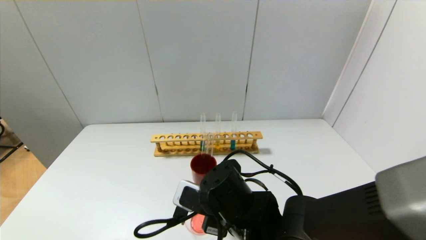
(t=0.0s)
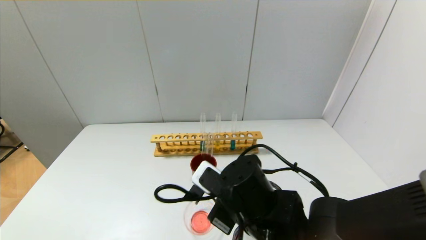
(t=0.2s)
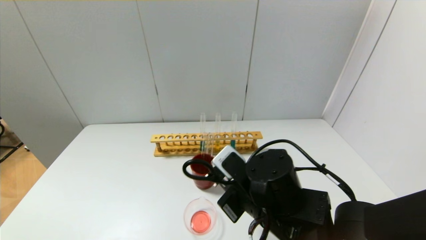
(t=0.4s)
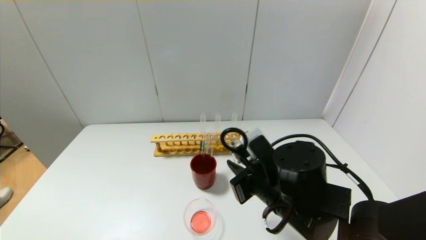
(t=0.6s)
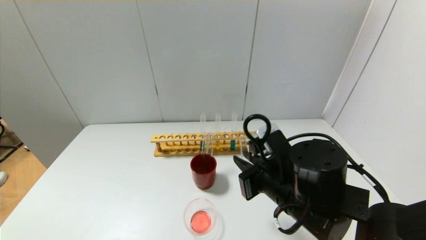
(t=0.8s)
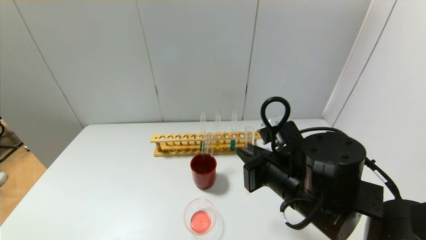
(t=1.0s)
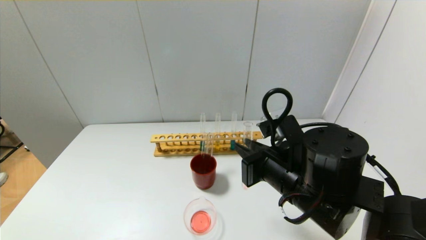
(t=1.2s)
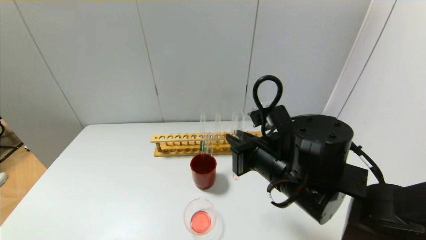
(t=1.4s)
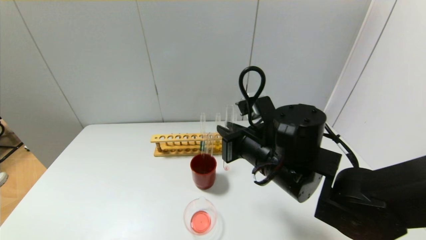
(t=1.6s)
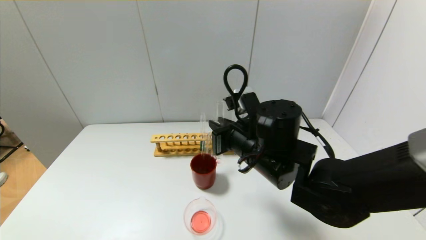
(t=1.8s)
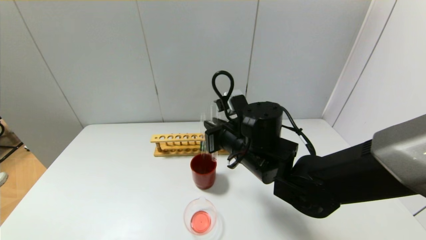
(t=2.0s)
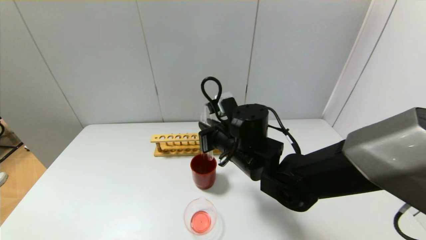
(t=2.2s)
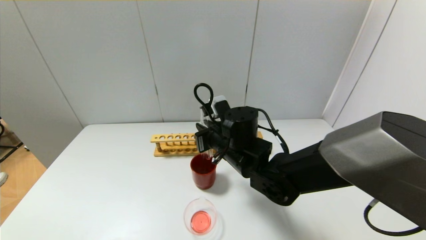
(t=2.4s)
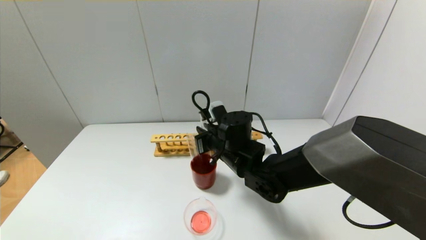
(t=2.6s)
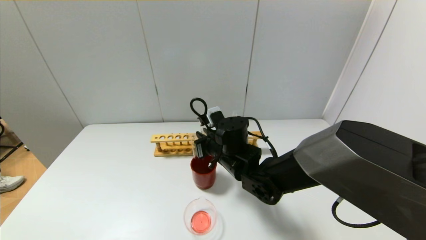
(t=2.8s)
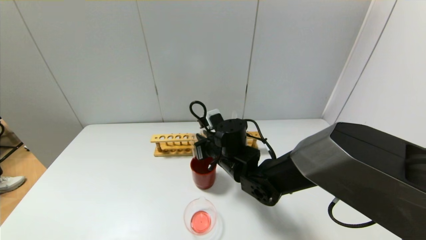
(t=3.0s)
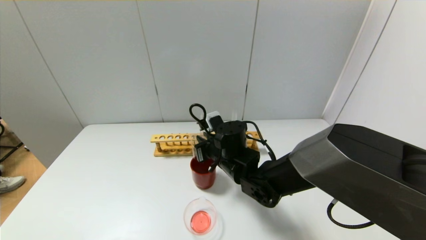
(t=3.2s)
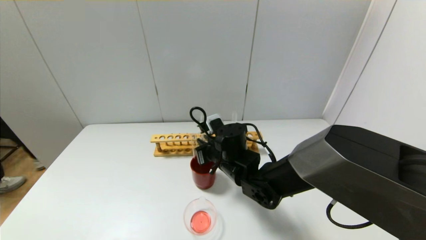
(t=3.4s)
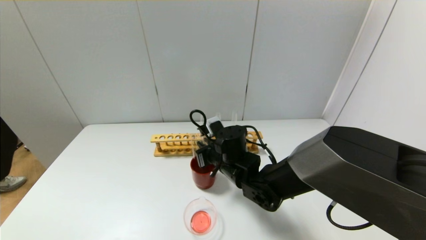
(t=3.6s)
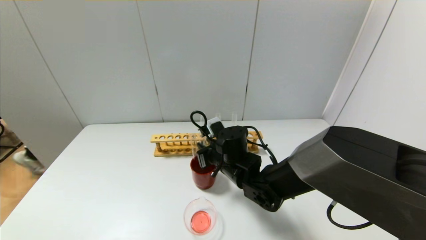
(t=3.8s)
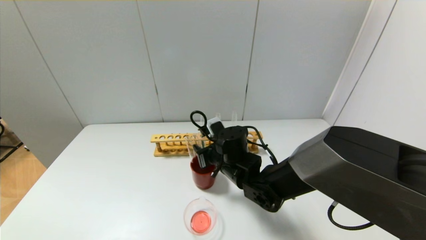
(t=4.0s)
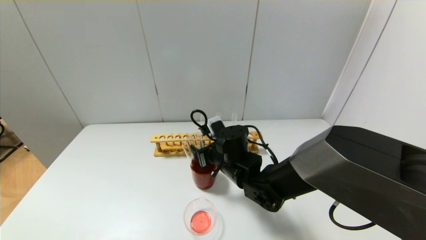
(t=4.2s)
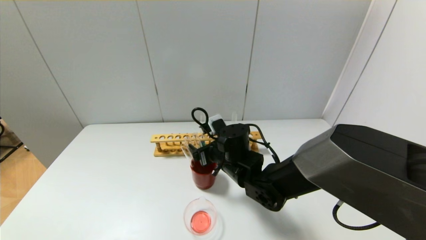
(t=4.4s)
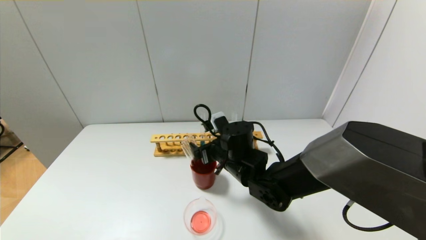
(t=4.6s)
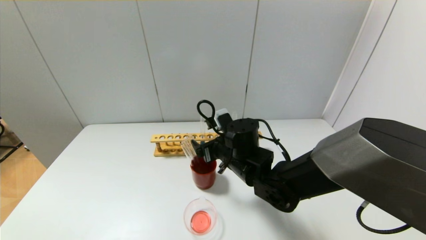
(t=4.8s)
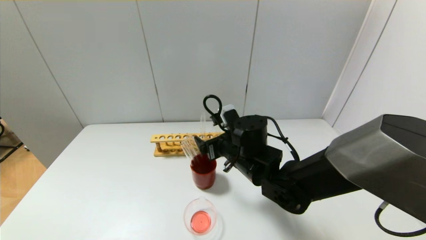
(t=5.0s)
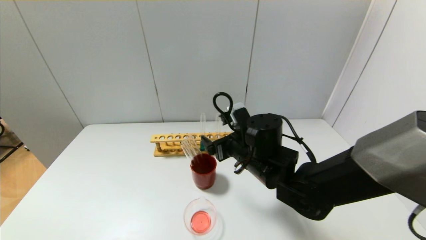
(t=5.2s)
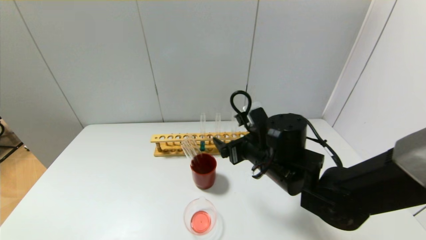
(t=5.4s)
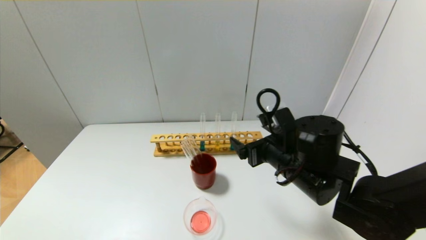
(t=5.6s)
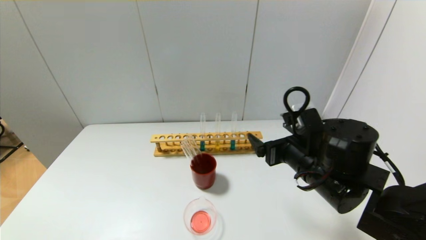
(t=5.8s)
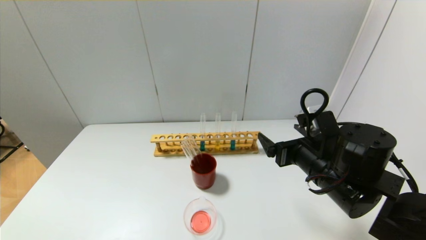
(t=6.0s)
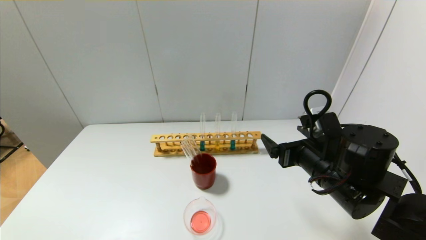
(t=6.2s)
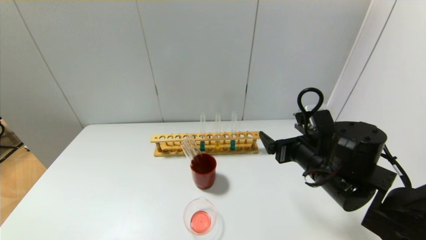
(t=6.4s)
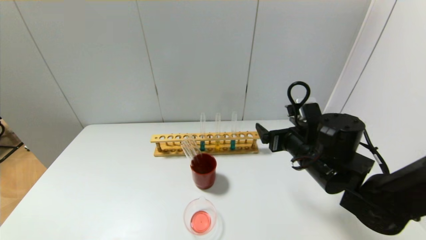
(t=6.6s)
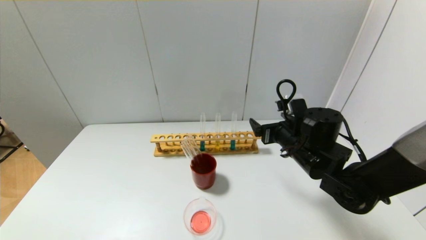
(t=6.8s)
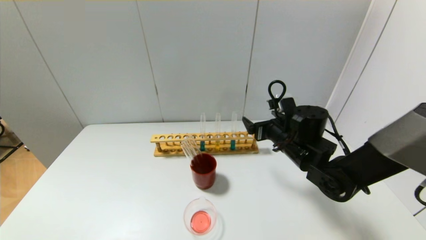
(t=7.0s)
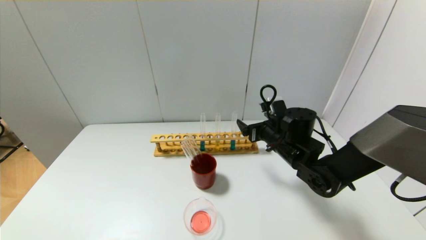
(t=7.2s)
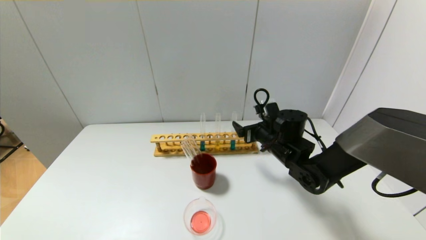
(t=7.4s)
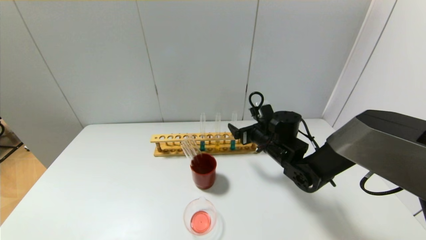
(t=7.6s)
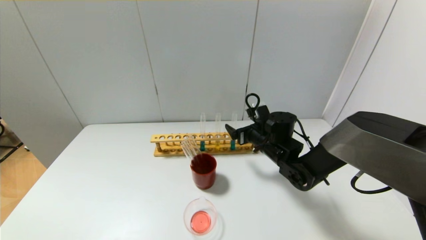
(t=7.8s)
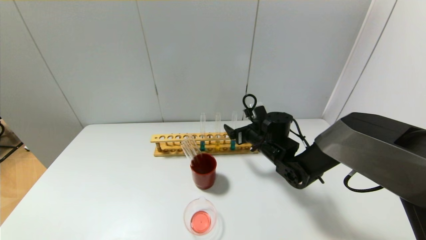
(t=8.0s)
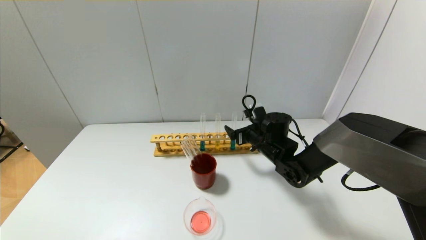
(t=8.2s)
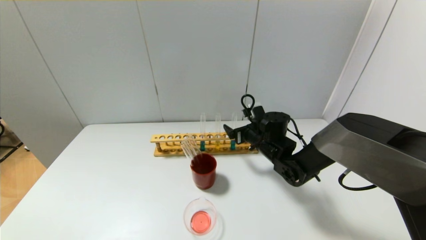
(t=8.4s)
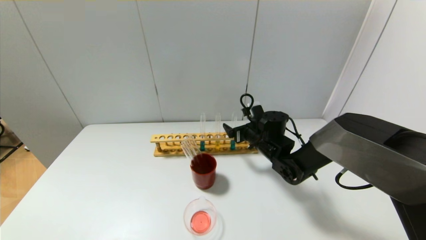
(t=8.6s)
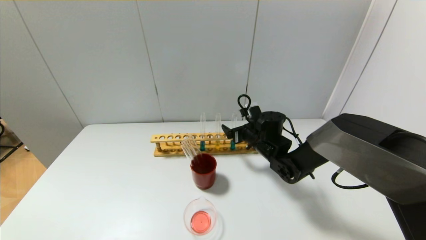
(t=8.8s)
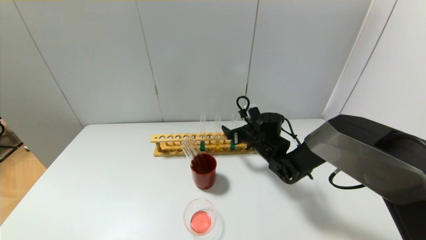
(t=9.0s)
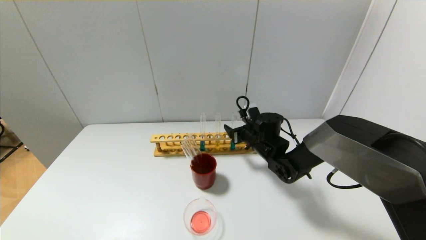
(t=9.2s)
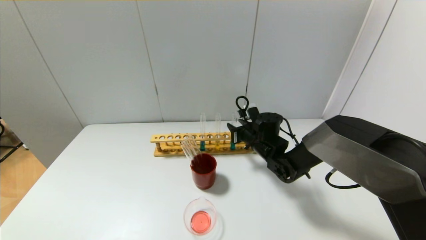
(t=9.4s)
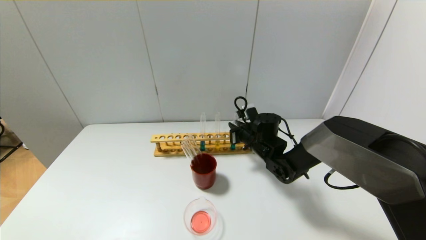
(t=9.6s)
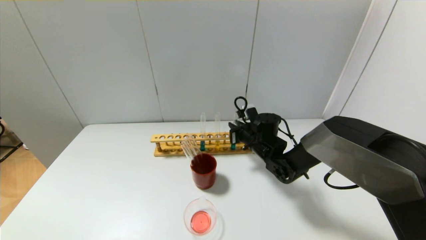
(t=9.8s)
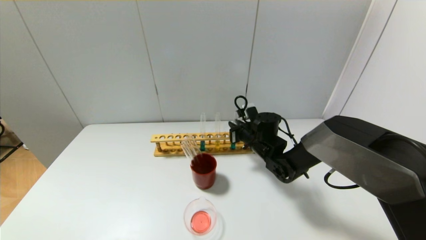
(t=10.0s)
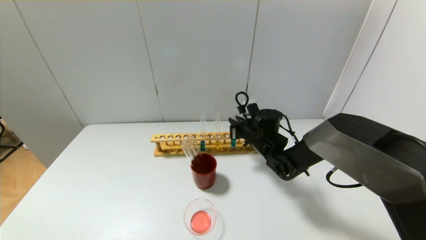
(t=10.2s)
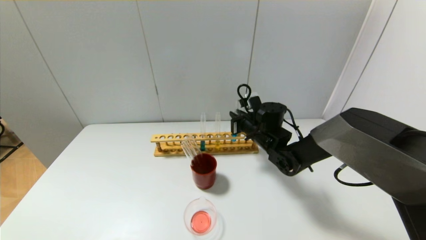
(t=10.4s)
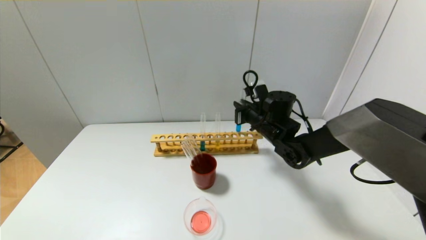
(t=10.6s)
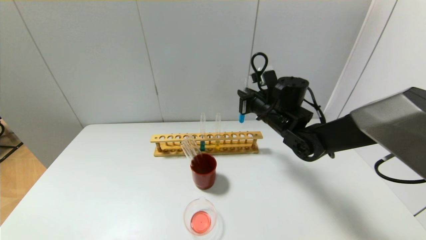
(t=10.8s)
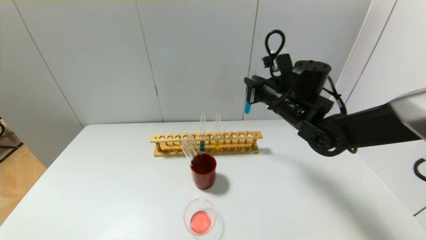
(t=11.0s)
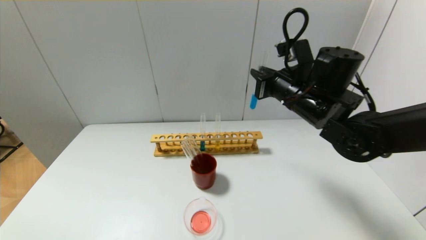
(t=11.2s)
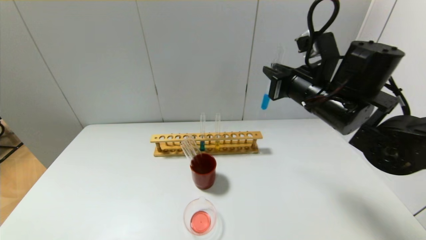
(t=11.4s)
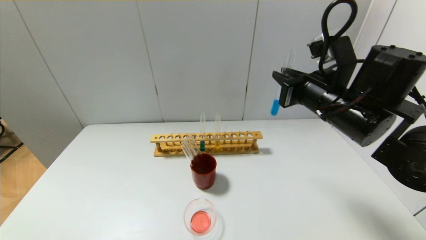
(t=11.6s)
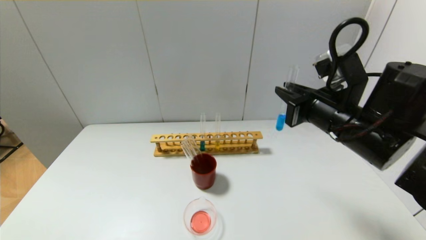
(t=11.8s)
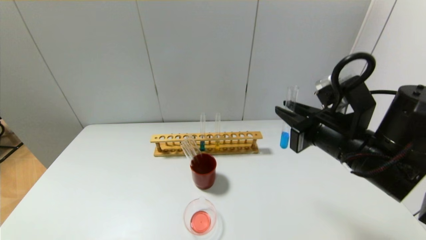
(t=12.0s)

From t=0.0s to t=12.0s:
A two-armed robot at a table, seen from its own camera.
Step, from t=0.0s to t=4.4s: Place the test tube into the brown cup with the right gripper.
Step, from t=4.6s to t=9.6s: Grasp the blue reagent with the right gripper.
From t=0.0s to t=1.6s: The right gripper travels upward and forward by roughly 10 cm.
From t=1.6s to t=3.0s: The right gripper is displaced forward, downward and to the left by about 15 cm.
From t=3.0s to t=4.4s: The right gripper opens up.
From t=4.4s to t=6.0s: The right gripper is displaced to the right, backward and upward by roughly 20 cm.
From t=6.0s to t=7.6s: The right gripper is displaced forward and downward by approximately 15 cm.
From t=7.6s to t=9.0s: The grippers move only a little.
From t=9.0s to t=10.4s: The right gripper closes up.
From t=10.4s to t=12.0s: The right gripper goes roughly 25 cm backward and upward.

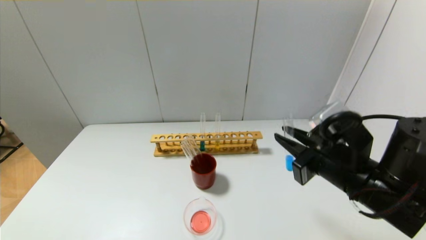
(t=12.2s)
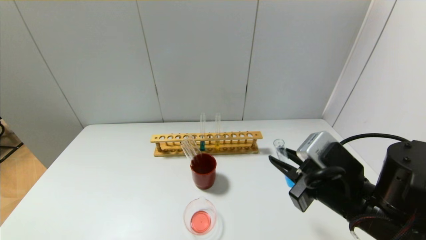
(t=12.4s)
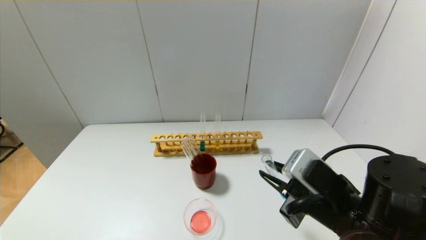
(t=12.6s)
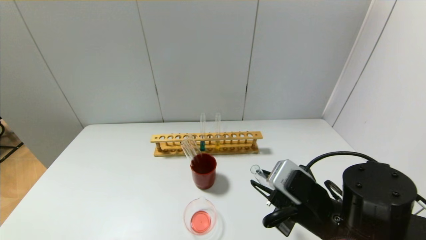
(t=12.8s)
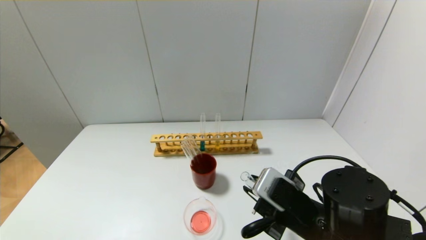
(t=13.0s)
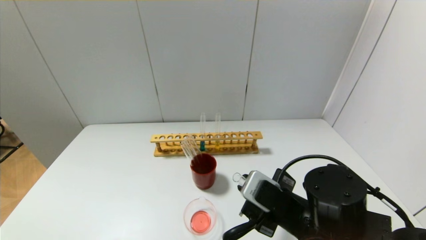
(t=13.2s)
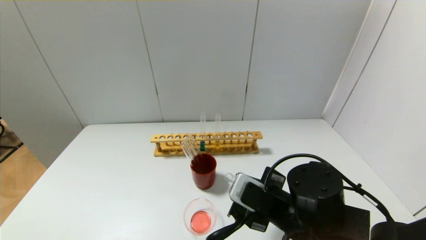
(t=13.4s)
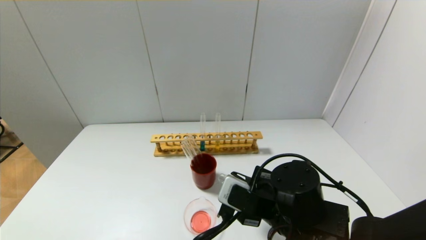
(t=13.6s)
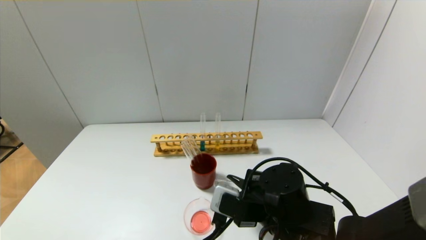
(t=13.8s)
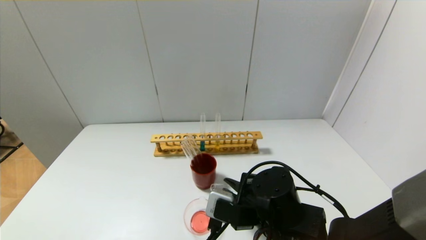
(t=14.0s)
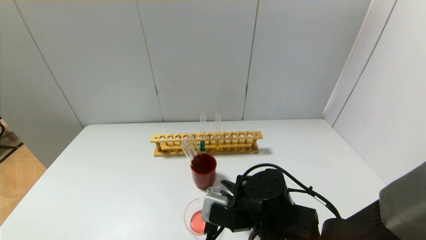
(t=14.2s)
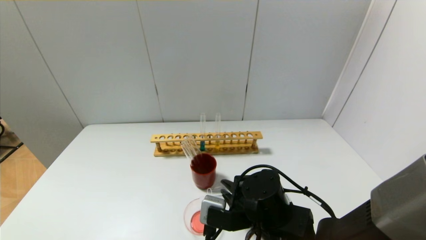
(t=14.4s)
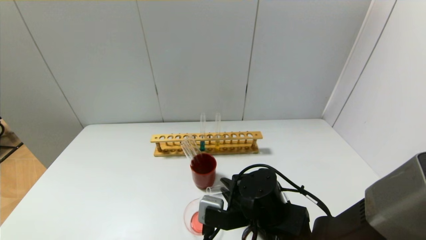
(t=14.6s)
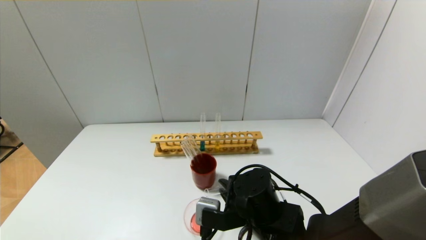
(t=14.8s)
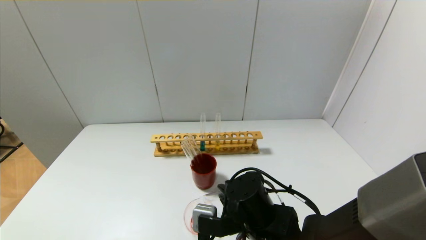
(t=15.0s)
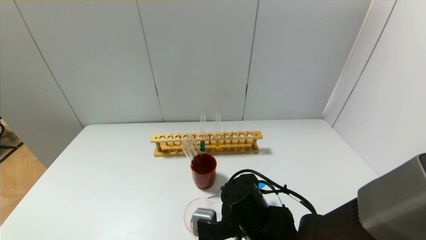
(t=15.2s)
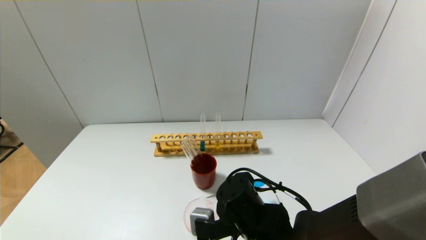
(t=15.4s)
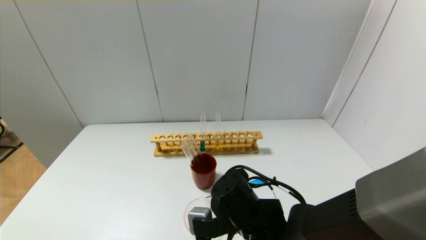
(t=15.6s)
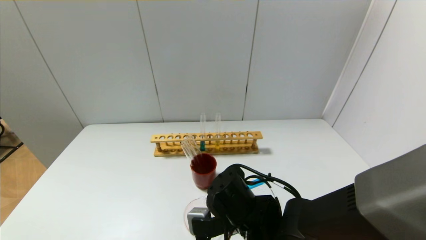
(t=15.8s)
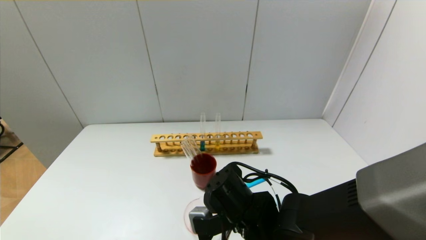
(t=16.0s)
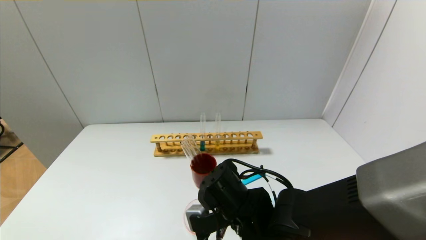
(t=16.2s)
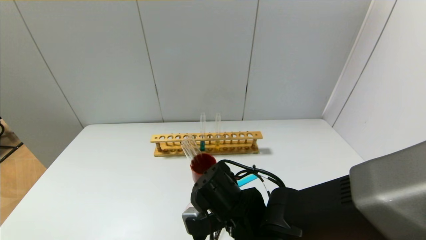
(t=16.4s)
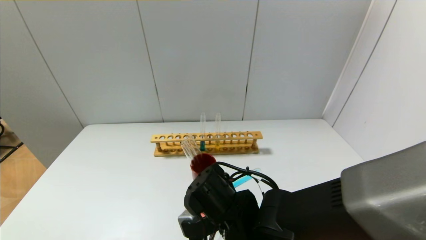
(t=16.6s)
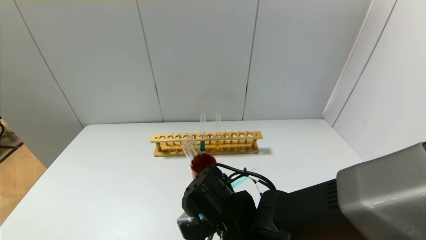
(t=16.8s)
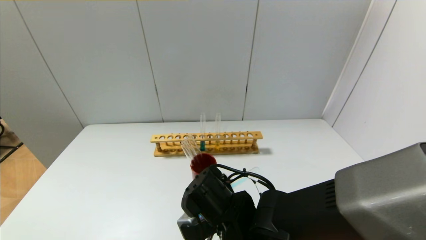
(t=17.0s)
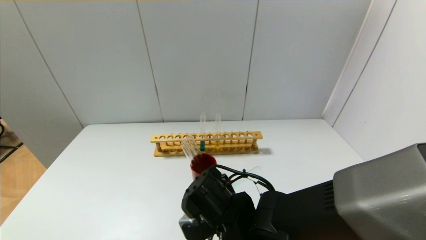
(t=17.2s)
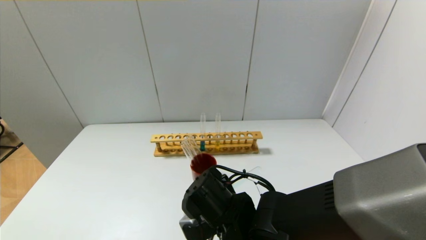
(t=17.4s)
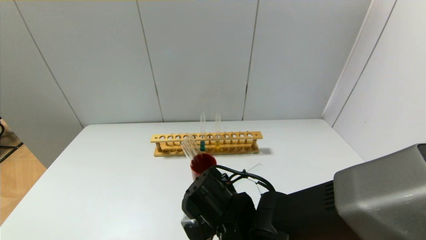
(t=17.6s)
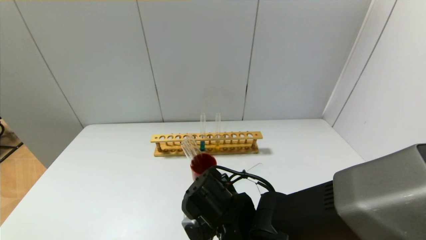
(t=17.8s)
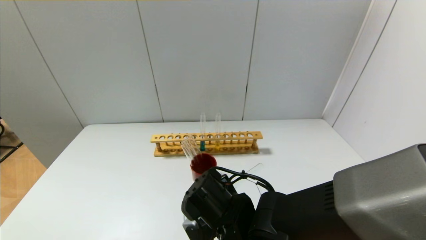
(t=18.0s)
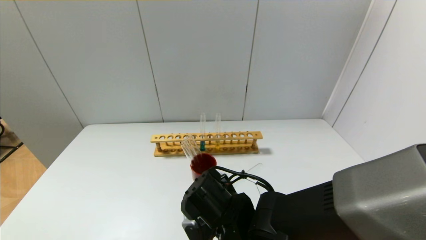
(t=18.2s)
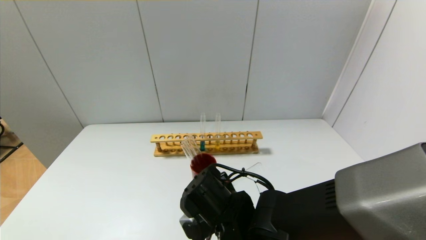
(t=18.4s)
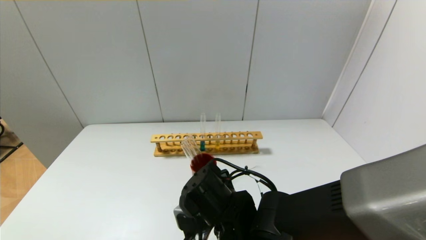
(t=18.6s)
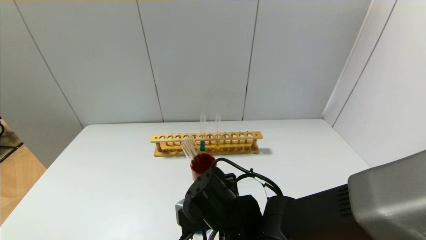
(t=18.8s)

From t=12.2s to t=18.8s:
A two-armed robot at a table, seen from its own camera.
Step, from t=12.2s to t=18.8s: Pour the blue reagent into the graduated cylinder with the right gripper.
From t=12.2s to t=13.8s: The right gripper moves to the left and downward, about 15 cm.
